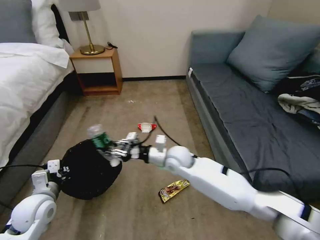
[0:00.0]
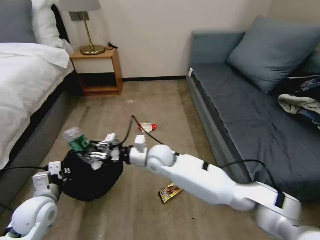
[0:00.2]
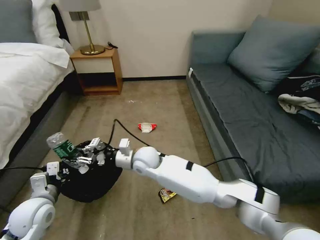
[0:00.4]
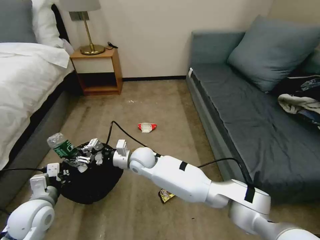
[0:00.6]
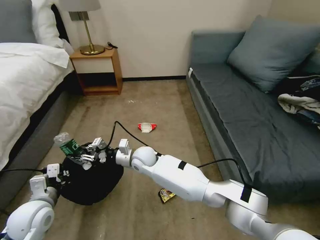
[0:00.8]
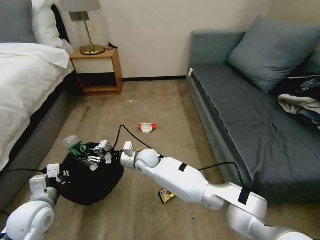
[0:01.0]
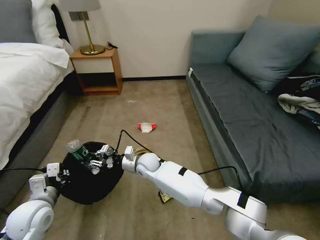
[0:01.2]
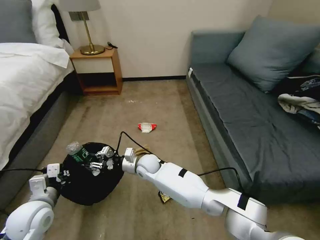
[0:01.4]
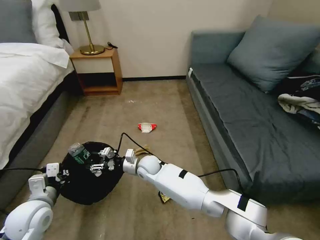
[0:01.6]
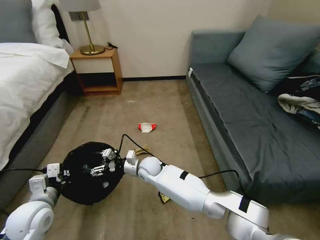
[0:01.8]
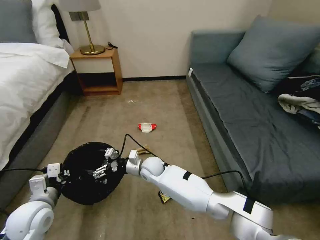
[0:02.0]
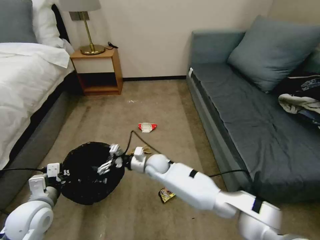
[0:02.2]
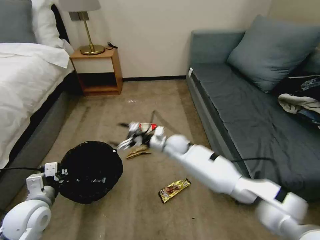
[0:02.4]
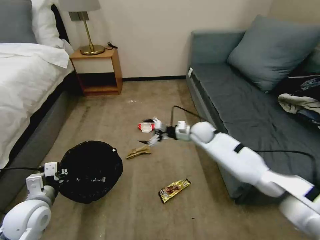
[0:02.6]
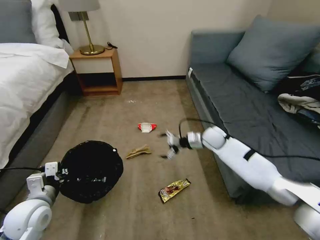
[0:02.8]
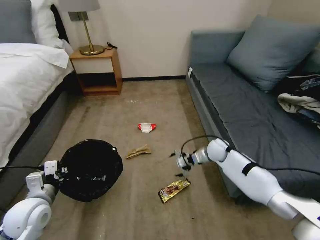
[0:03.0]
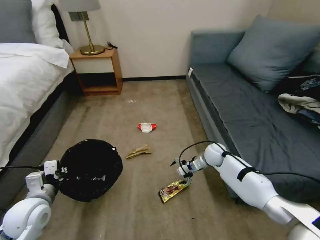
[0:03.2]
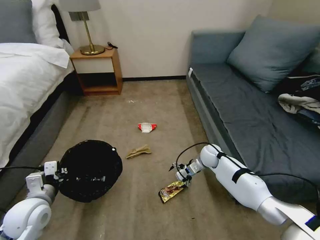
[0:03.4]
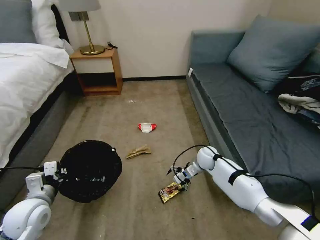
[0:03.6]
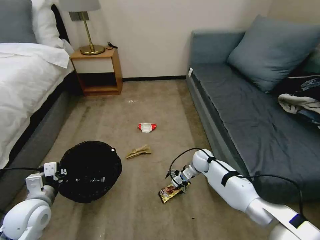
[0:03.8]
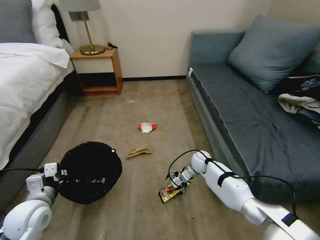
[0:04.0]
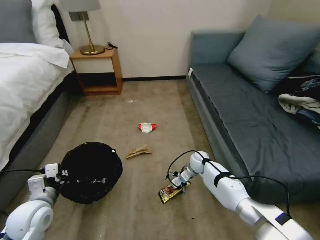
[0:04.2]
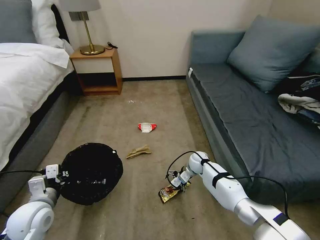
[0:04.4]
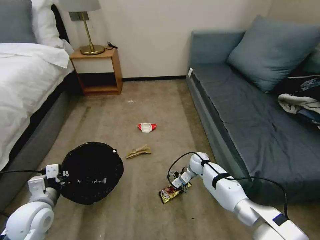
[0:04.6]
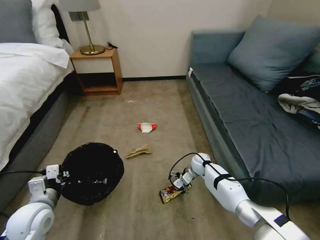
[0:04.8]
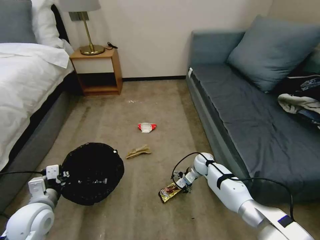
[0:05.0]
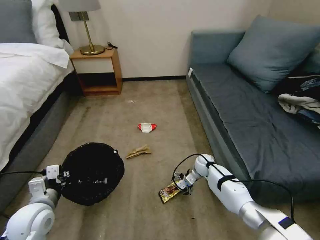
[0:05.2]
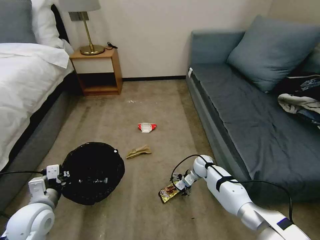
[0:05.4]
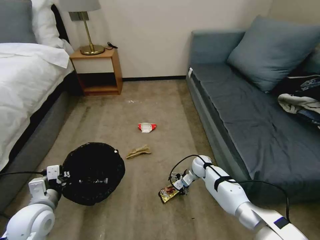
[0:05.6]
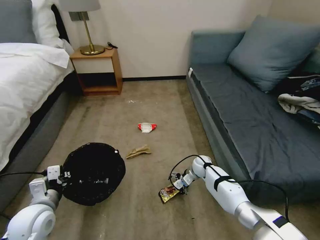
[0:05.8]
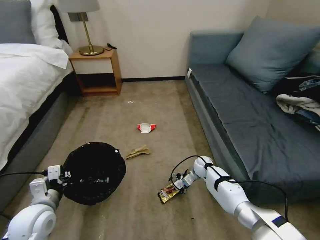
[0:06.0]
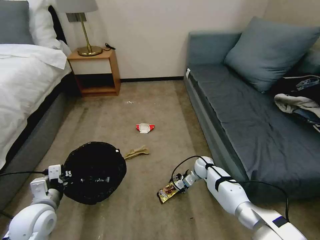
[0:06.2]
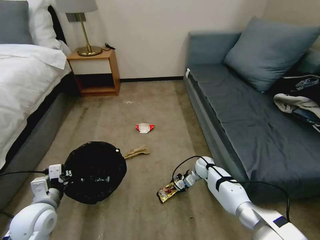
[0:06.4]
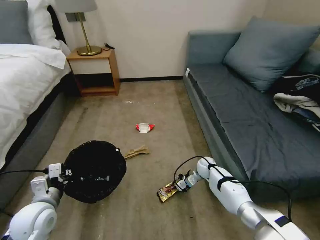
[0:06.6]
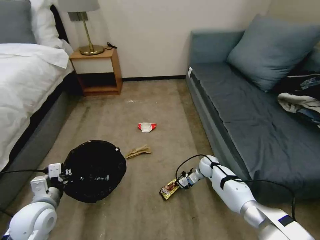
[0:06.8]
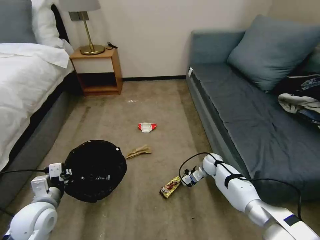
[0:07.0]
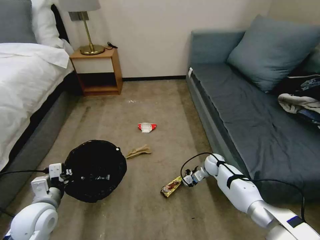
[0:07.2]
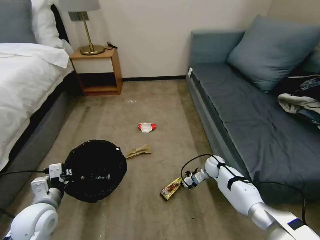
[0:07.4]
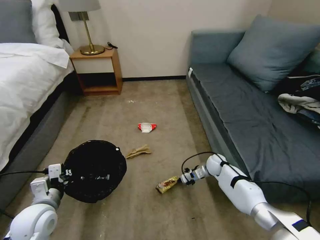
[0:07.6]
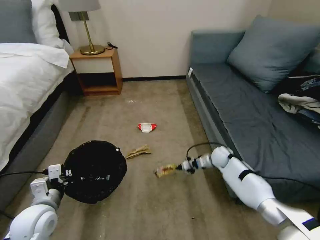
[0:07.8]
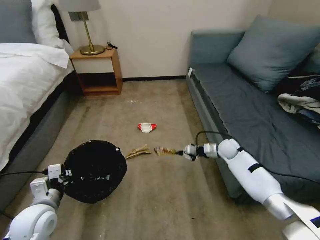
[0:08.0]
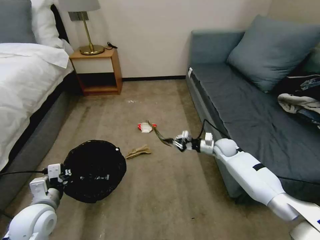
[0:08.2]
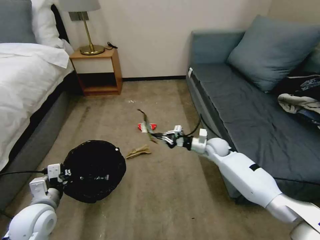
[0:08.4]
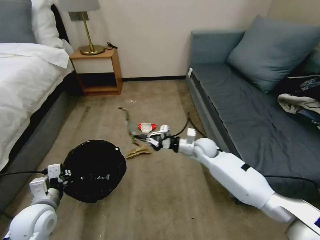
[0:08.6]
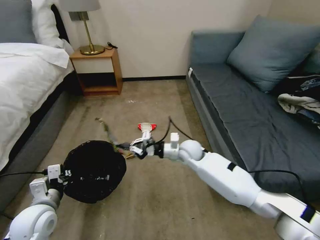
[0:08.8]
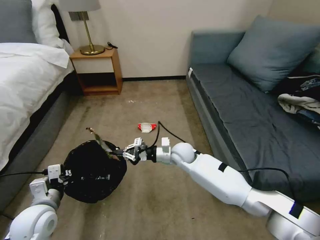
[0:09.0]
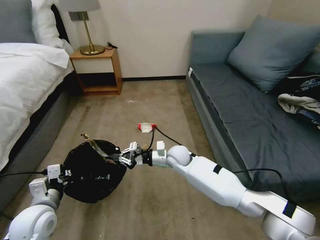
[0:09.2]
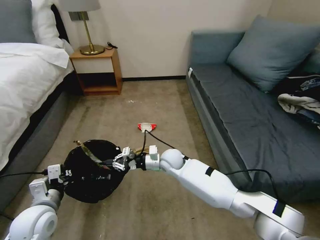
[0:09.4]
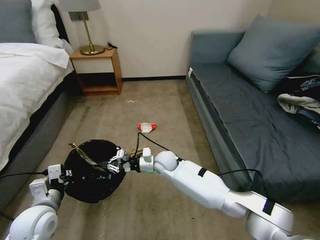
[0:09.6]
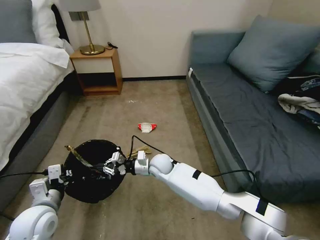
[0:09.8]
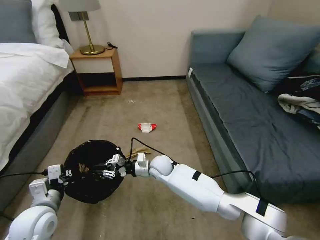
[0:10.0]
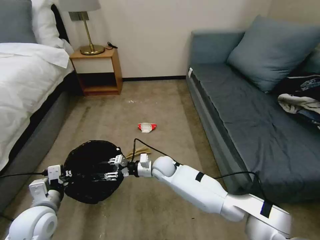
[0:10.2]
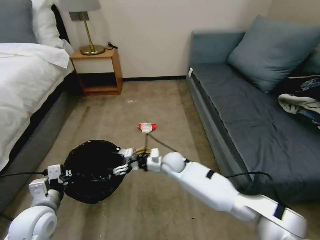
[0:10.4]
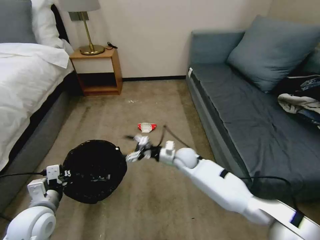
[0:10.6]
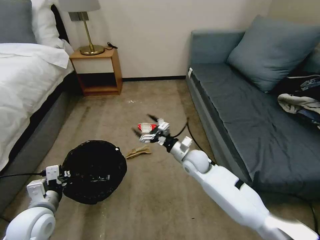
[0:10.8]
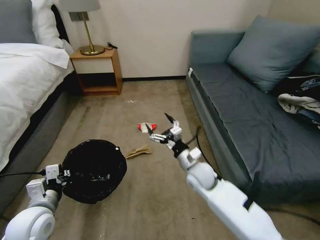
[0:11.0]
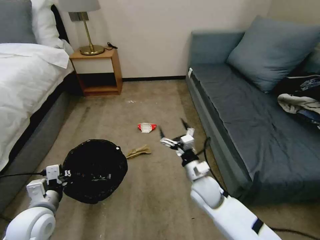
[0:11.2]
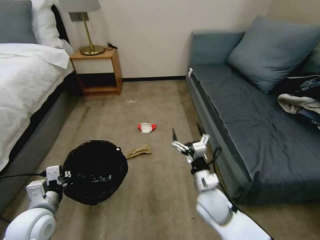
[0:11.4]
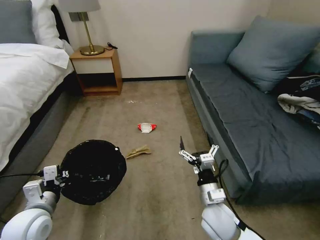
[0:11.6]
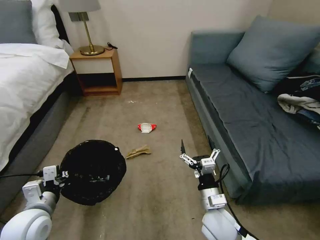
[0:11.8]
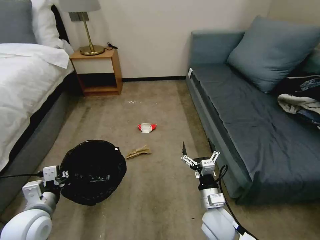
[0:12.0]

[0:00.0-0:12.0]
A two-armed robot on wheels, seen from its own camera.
Task of the whole recording: Pick up the trash bin, then pick up the garbage on the floor and place it into the trash bin.
0:00.0 to 0:01.6: The right gripper goes about 15 cm to the left and downward.
0:01.6 to 0:03.0: The right gripper heads to the right, covering approximately 30 cm, and opens its fingers.
0:03.0 to 0:04.4: The right gripper goes approximately 10 cm downward and to the left.
0:04.4 to 0:06.0: The grippers move only a little.
0:06.0 to 0:07.6: The right gripper moves to the right, about 5 cm, and closes up.
0:07.6 to 0:09.0: The right gripper is displaced to the left and upward by some 25 cm.
0:09.0 to 0:10.4: The right gripper opens its fingers.
0:10.4 to 0:12.0: The right gripper is displaced backward and to the right by some 25 cm.

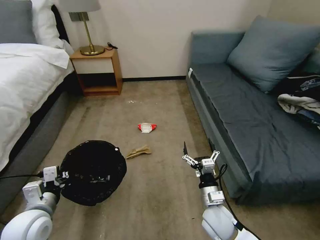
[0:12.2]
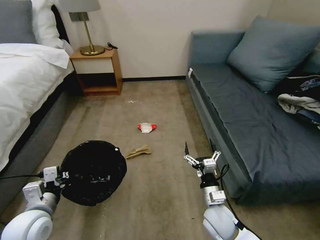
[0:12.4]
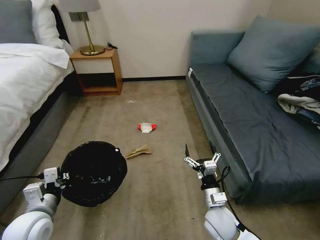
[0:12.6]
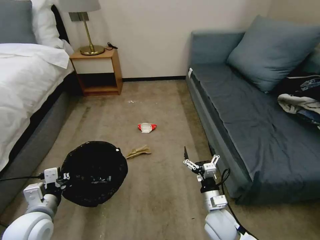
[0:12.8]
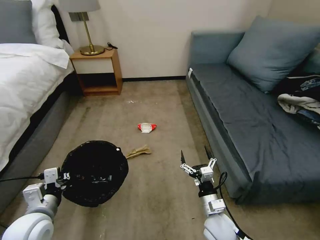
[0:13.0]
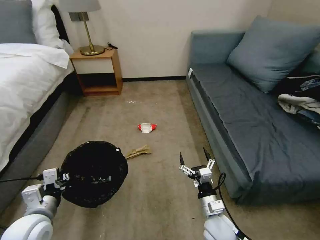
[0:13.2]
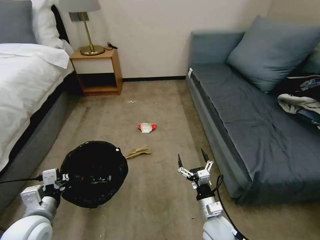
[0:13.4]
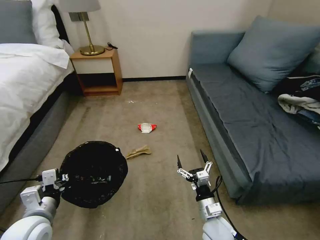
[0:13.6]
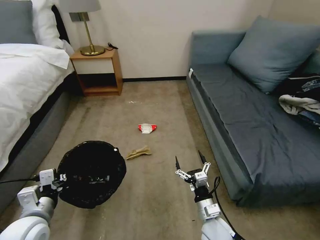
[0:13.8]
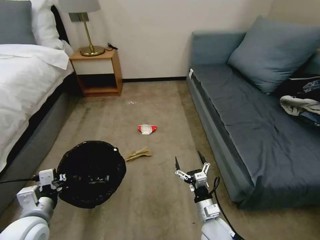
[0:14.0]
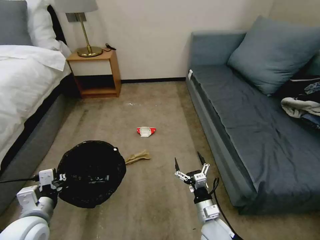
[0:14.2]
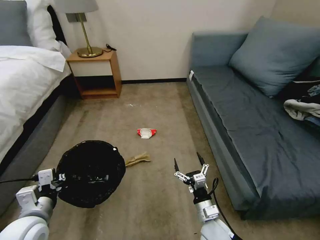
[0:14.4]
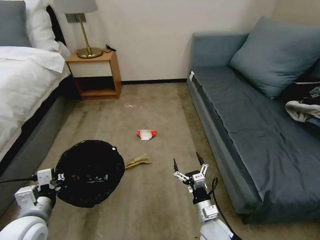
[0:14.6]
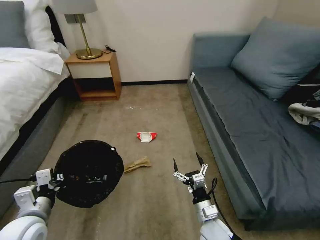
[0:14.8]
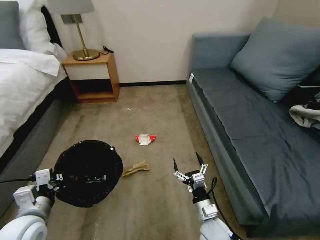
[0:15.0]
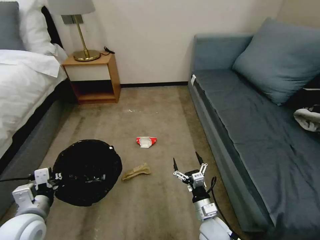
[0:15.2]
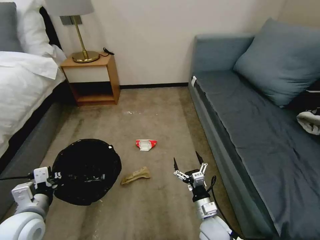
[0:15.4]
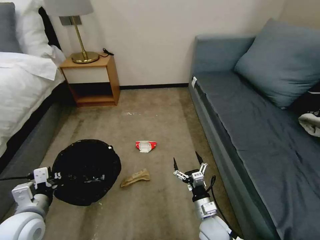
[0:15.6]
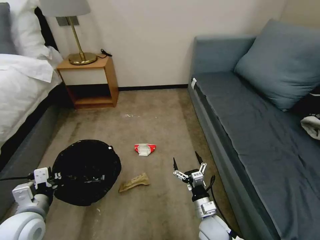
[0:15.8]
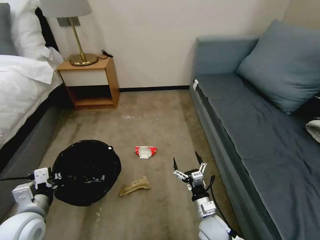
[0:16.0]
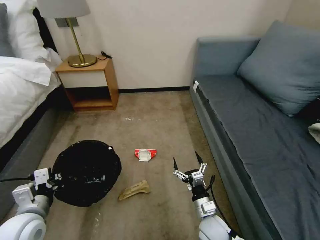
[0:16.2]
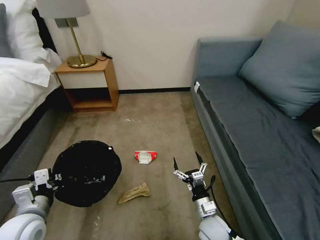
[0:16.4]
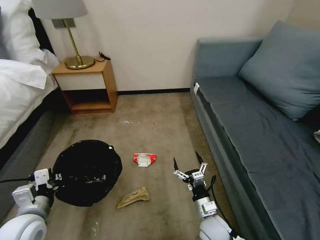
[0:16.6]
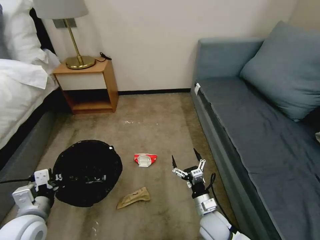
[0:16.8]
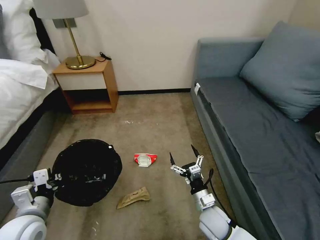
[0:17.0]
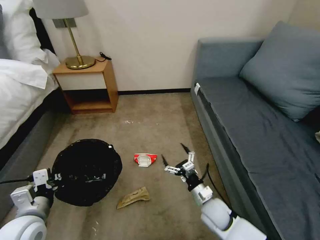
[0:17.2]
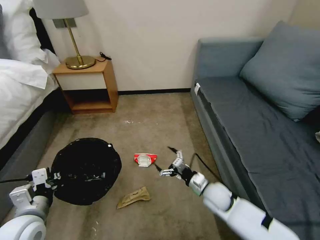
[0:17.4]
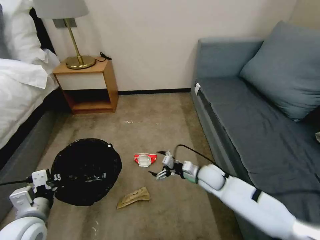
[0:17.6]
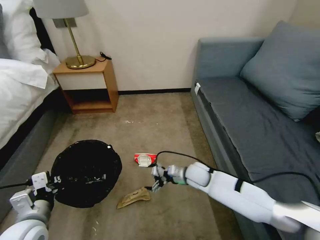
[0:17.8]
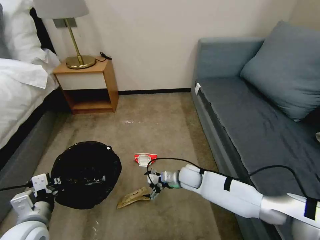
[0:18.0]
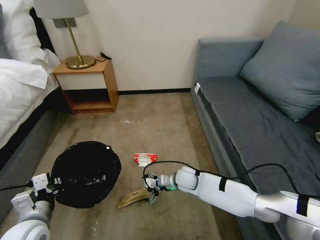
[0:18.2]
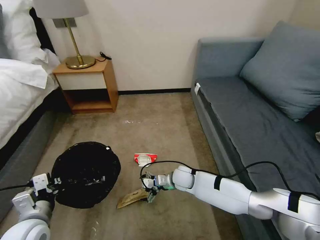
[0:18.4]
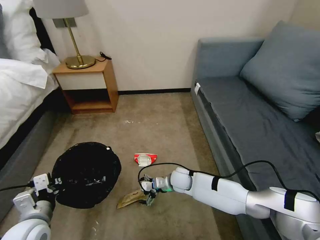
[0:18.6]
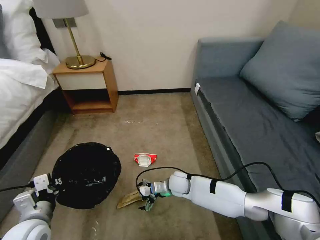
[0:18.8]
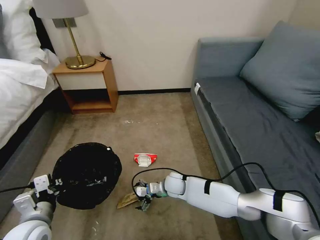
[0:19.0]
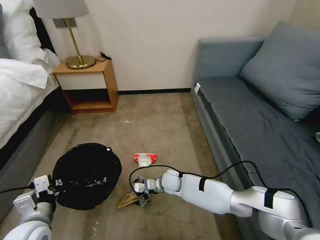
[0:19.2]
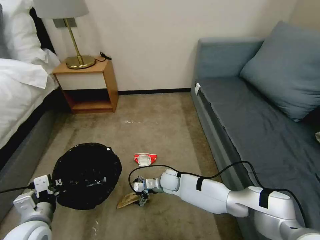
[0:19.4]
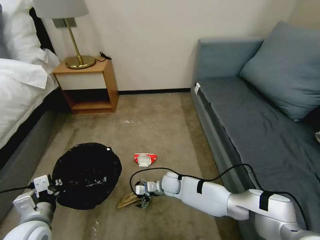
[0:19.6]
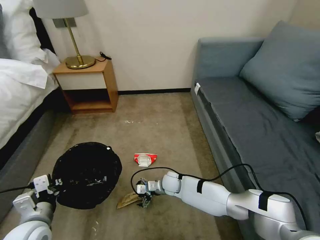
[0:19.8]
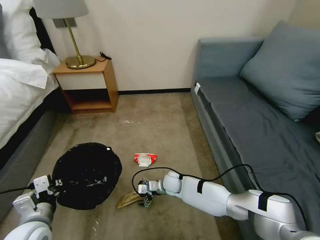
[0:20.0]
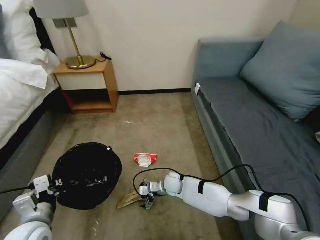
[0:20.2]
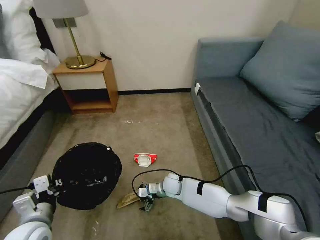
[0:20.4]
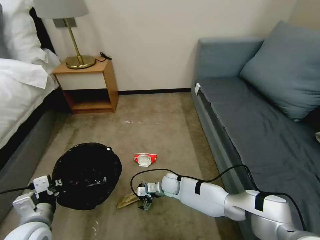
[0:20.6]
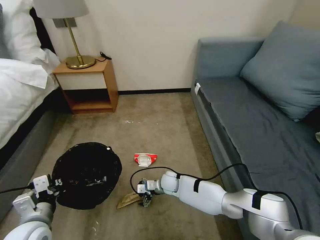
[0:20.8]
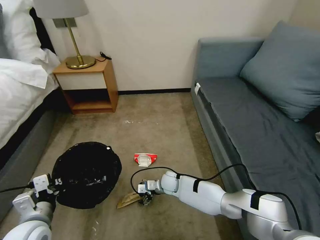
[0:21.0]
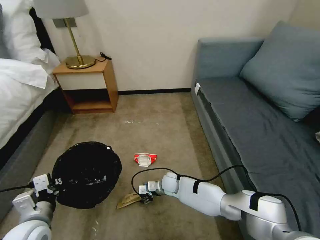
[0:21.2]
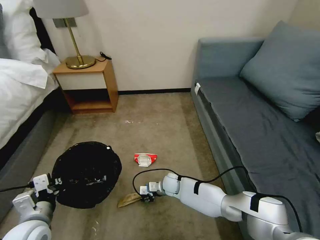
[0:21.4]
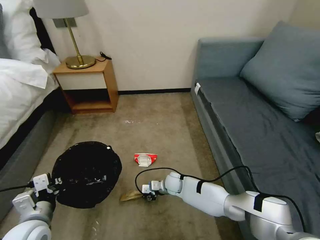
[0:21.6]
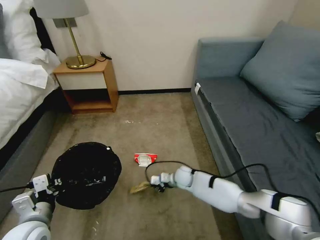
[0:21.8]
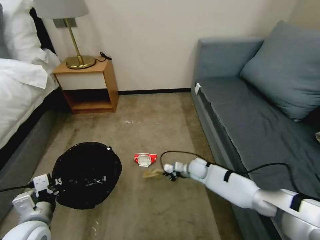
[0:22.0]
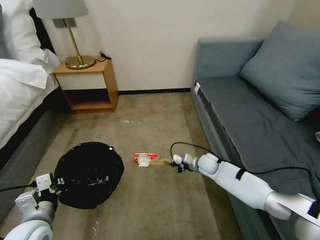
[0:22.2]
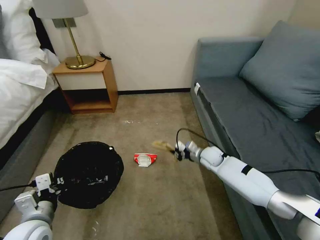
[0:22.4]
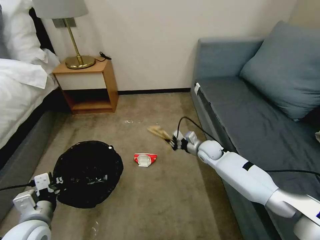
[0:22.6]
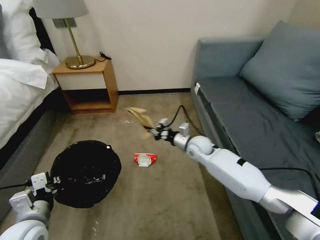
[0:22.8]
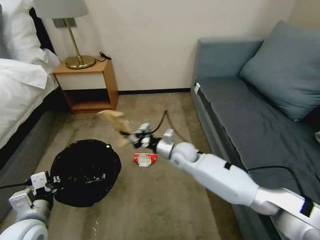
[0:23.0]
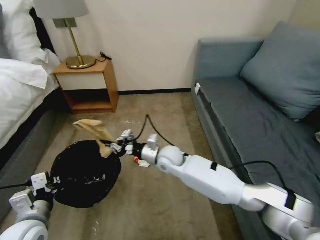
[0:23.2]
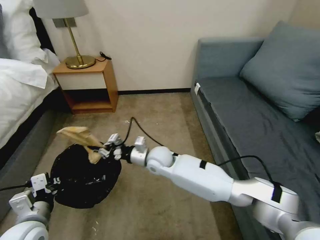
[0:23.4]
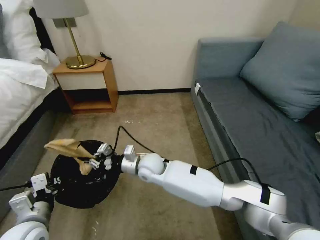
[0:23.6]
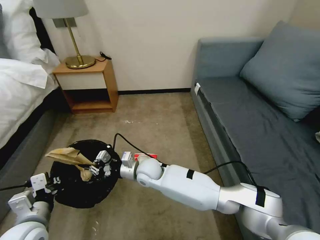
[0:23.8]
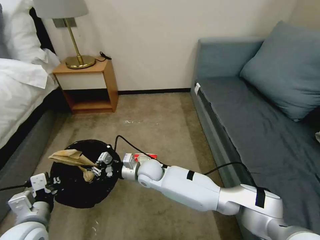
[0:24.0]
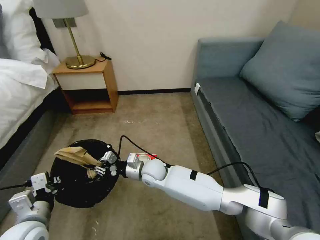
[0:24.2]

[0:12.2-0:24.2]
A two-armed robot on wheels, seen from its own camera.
Task of the whole recording: Pick up the trash bin, then pick up the garbage on the floor and place it into the trash bin.
0:12.2 to 0:13.8: There are only small adjustments of the grippers.
0:16.6 to 0:18.2: The right gripper is displaced forward by approximately 20 cm.
0:18.2 to 0:19.8: The right gripper shifts about 10 cm to the left and downward.
0:19.8 to 0:21.2: The right gripper closes its fingers.
0:21.2 to 0:22.6: The right gripper travels to the right, upward and forward by some 25 cm, and closes its fingers.
0:22.6 to 0:24.2: The right gripper shifts some 25 cm to the left.
